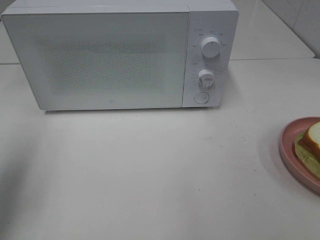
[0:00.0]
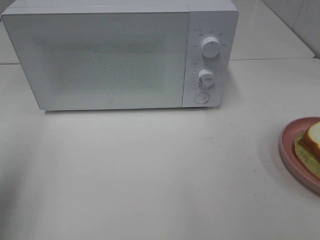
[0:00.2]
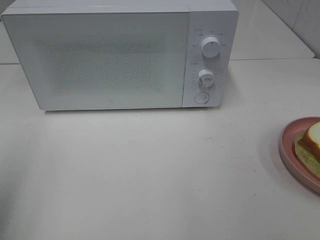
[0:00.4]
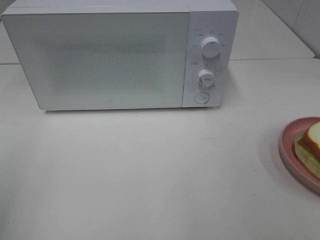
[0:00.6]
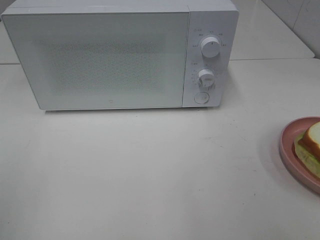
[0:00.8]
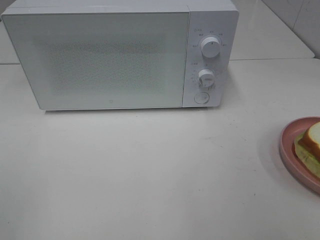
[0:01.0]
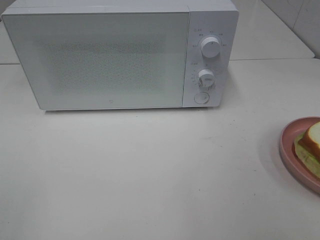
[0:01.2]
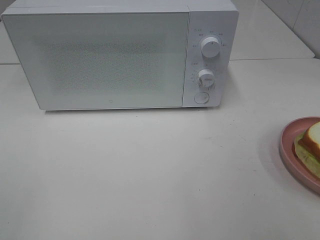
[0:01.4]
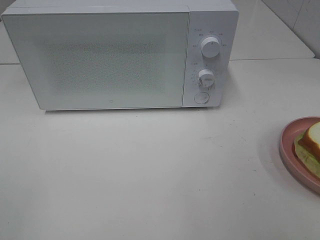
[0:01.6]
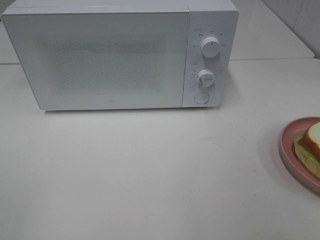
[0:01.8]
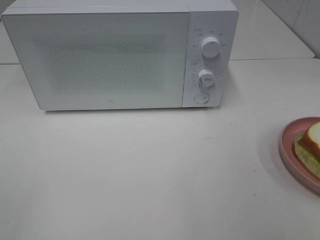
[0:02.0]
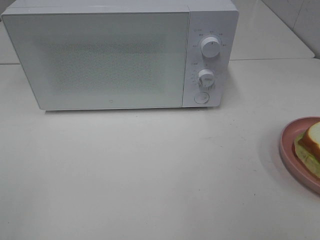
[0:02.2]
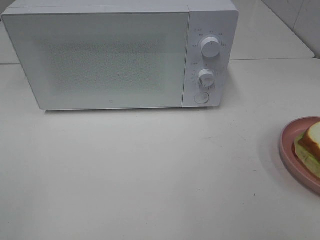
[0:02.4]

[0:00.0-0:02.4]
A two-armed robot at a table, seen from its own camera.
Task of the whole recording: Heat Sandwich.
0:00.0 to 0:01.2: The left gripper is displaced backward by roughly 20 cm.
0:01.2 to 0:02.4: Neither gripper changes place.
